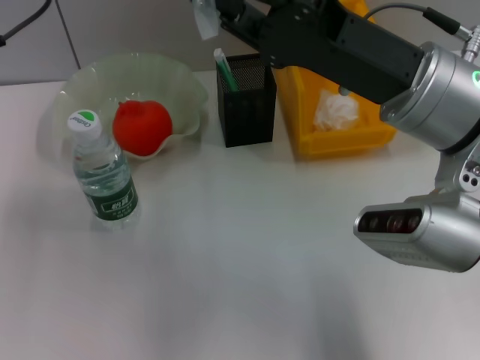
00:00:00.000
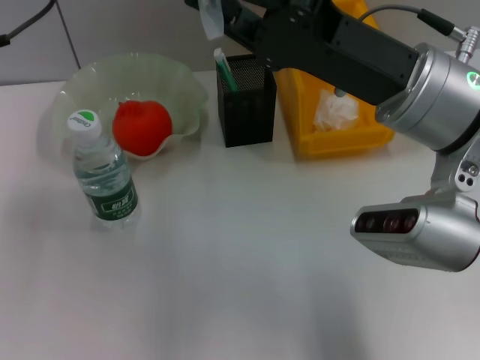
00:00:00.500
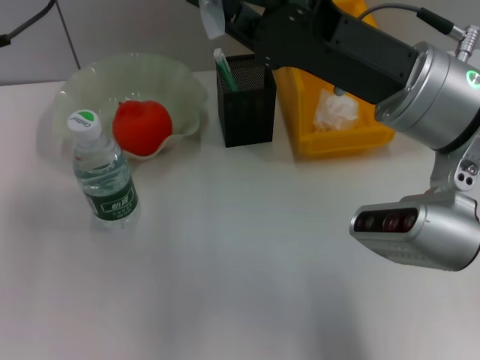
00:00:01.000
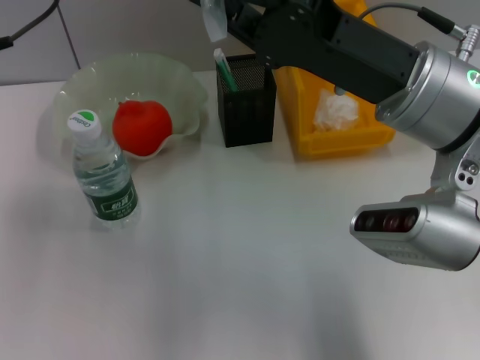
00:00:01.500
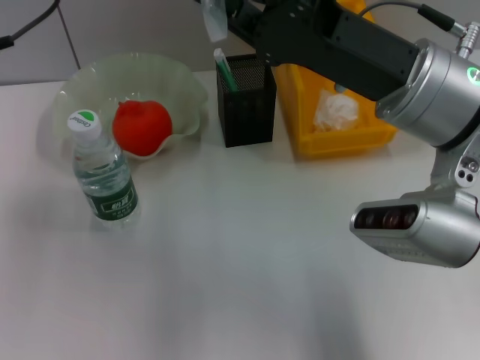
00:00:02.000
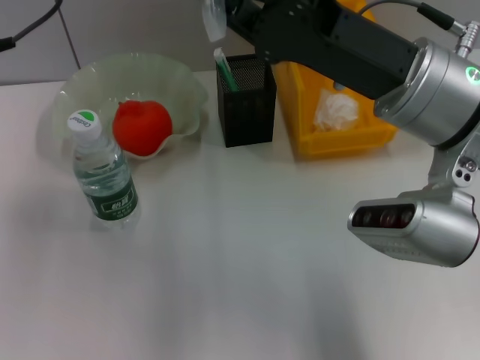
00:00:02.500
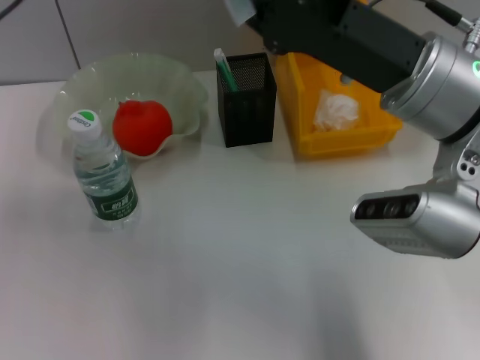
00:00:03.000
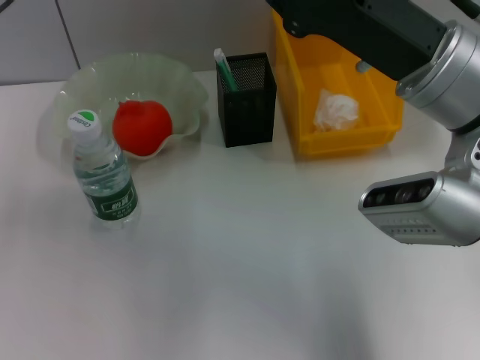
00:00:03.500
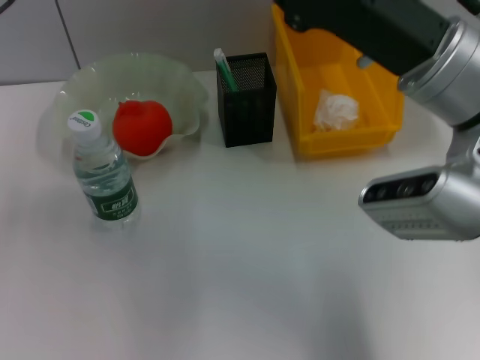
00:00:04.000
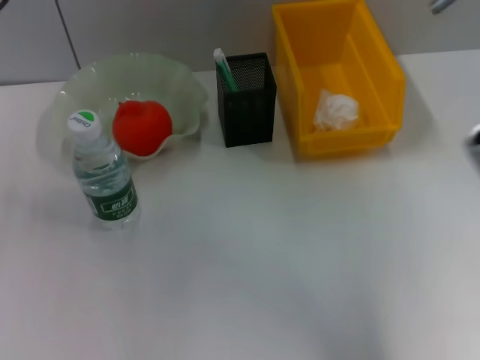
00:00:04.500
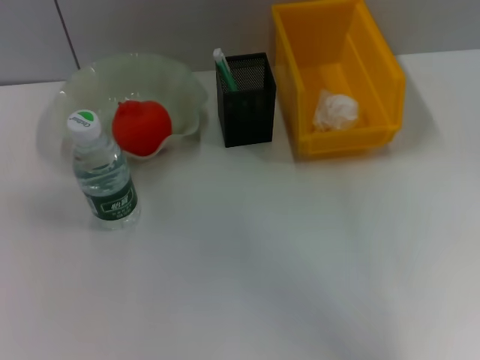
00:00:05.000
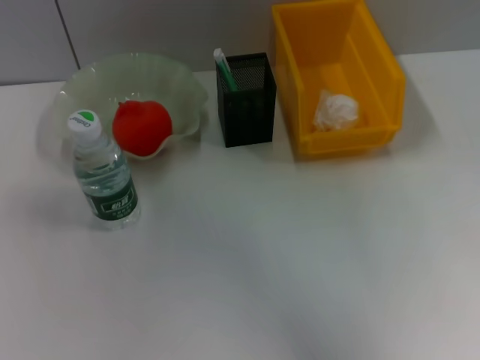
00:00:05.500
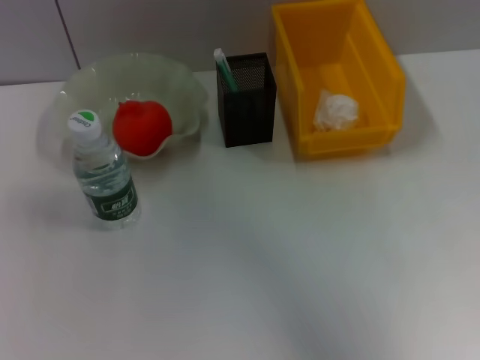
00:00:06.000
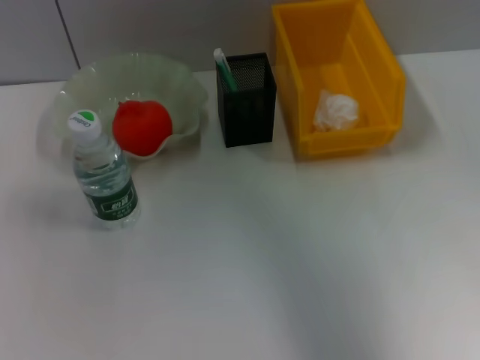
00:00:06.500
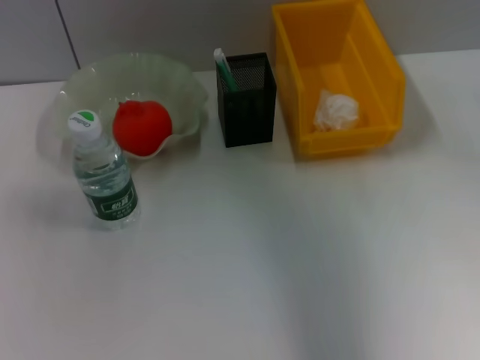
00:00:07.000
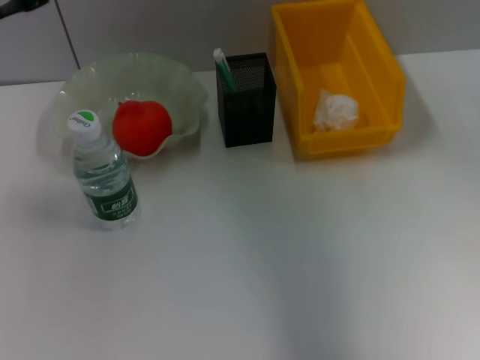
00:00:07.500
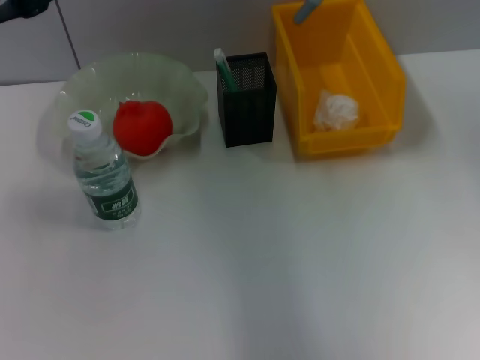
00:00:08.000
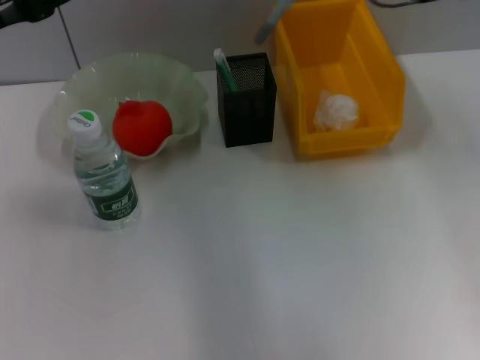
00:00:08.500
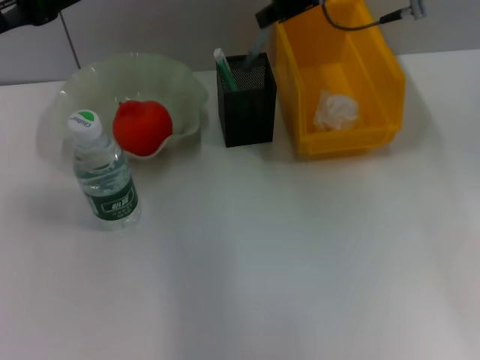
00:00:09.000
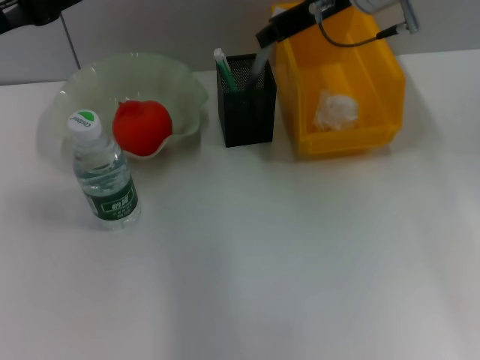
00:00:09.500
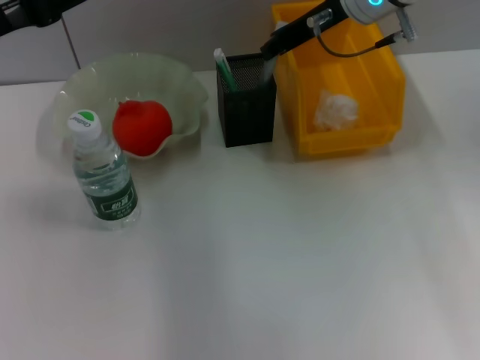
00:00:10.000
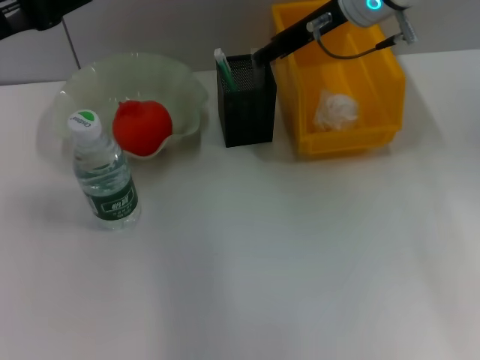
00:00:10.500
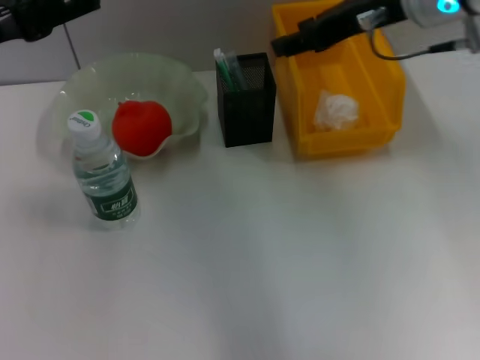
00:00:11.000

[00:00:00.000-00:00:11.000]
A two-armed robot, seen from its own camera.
Step, 00:00:00.000 to 00:00:04.000: Pass the gray glue from the left hand to the right hand.
Step, 00:00:04.500 to 00:00:10.500: Place the gray glue into the pen holder with the right hand.
00:00:00.000 to 00:00:02.000: Both grippers stay about where they are.
00:00:02.000 to 00:00:03.500: The left gripper opens.
00:00:03.500 to 00:00:05.500: The right gripper shifts roughly 10 cm to the right and upward.
00:00:07.500 to 00:00:09.000: The right gripper travels to the left, forward and downward by approximately 15 cm.
00:00:09.000 to 00:00:11.000: The right gripper goes approximately 5 cm backward, and opens up.

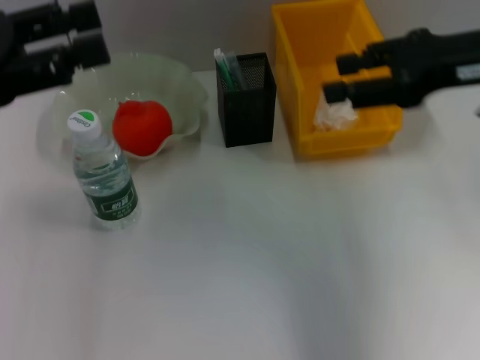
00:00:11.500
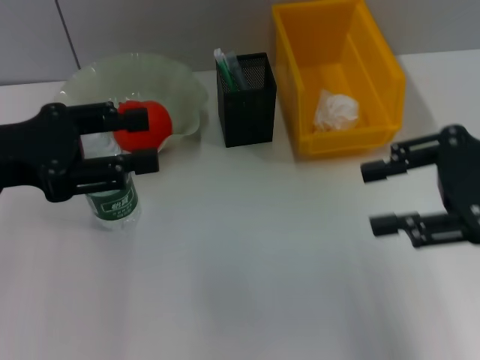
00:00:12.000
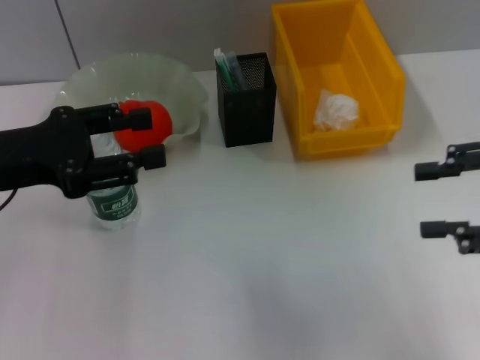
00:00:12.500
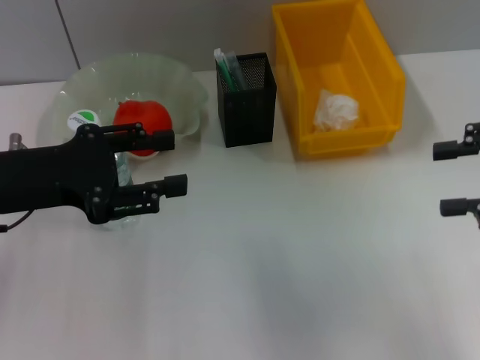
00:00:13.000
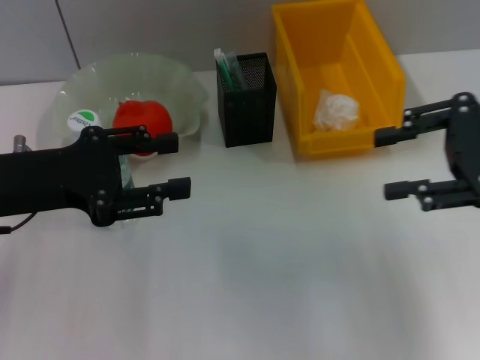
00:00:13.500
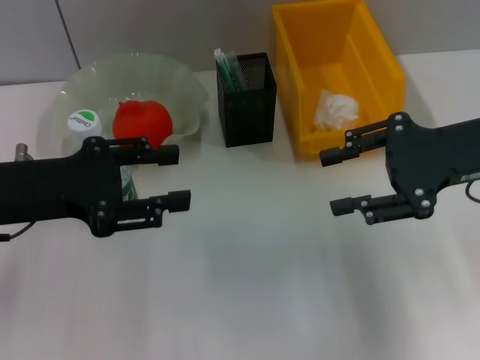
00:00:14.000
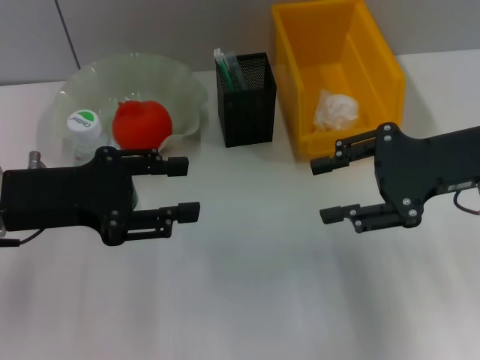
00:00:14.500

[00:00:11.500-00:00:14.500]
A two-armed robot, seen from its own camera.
00:00:11.500 to 00:00:13.000: The right gripper moves to the right and backward, roughly 10 cm; the left gripper goes some 5 cm downward.
00:00:13.000 to 00:00:14.500: The right gripper goes roughly 10 cm to the left and forward.
